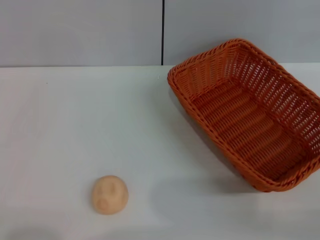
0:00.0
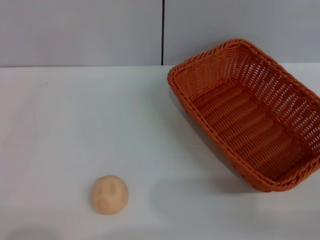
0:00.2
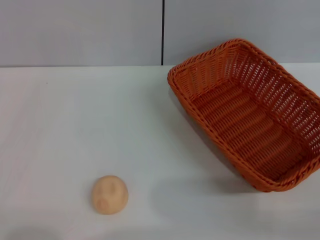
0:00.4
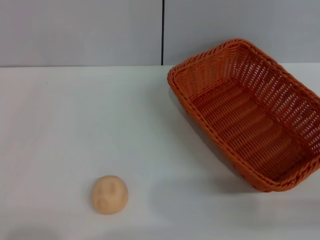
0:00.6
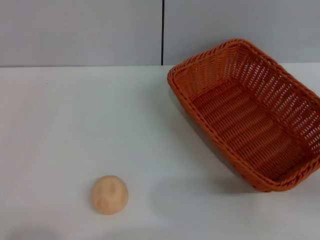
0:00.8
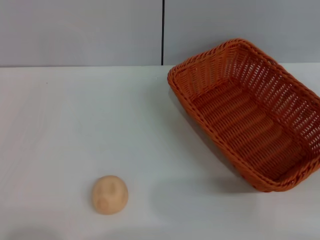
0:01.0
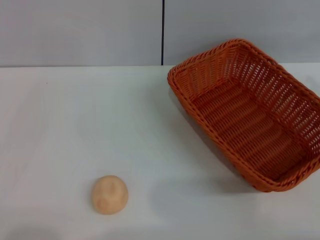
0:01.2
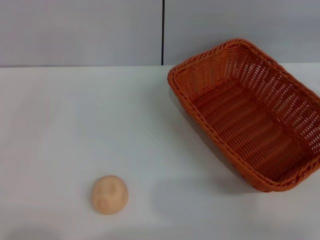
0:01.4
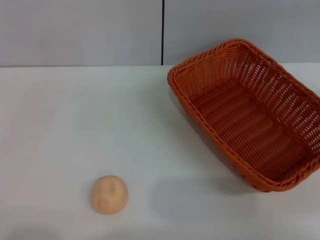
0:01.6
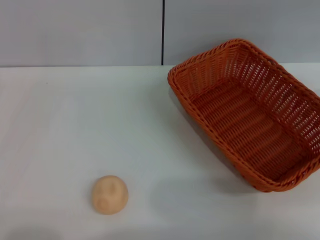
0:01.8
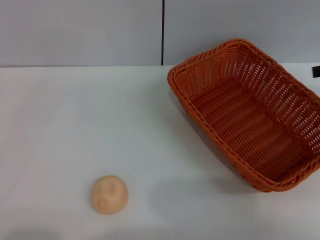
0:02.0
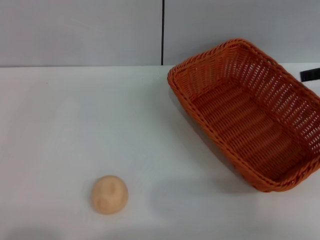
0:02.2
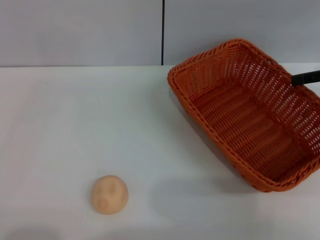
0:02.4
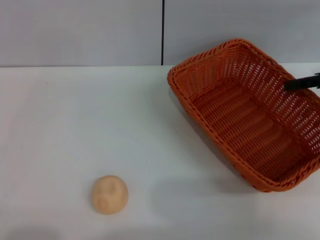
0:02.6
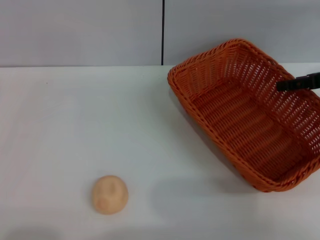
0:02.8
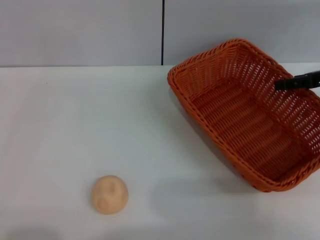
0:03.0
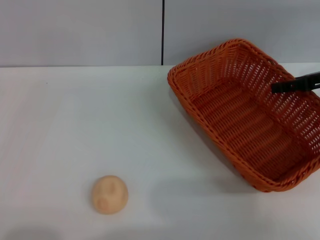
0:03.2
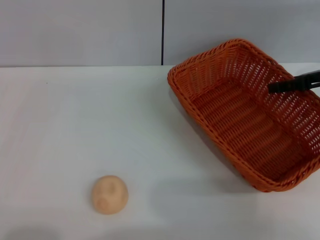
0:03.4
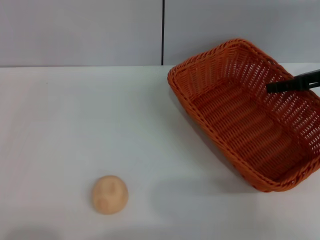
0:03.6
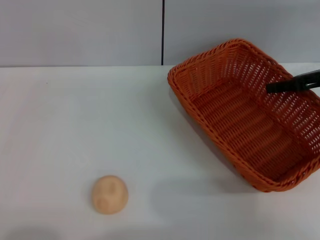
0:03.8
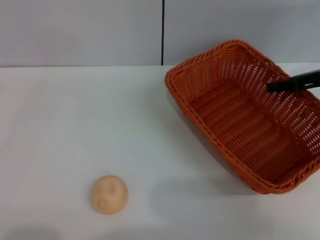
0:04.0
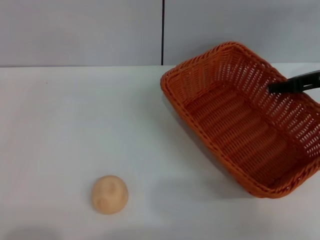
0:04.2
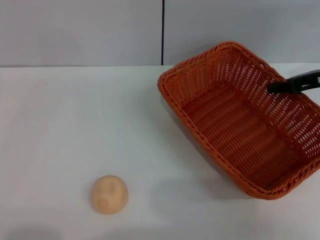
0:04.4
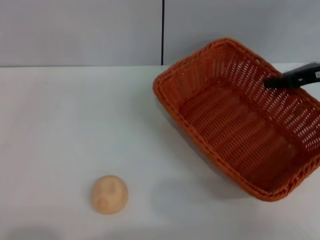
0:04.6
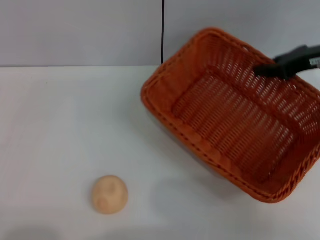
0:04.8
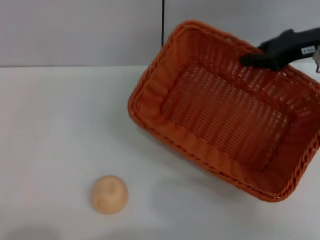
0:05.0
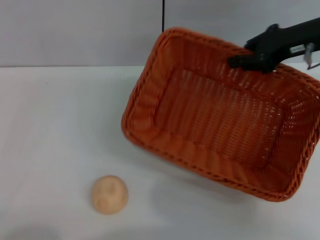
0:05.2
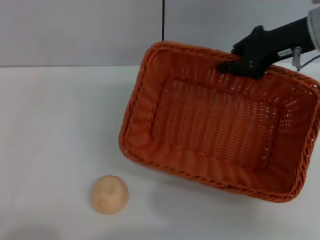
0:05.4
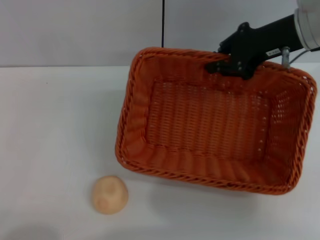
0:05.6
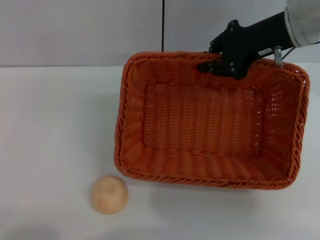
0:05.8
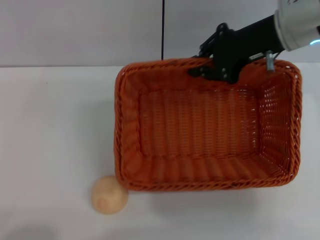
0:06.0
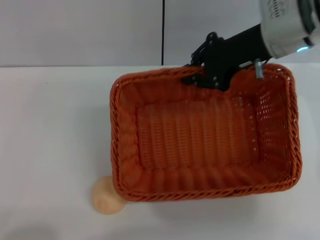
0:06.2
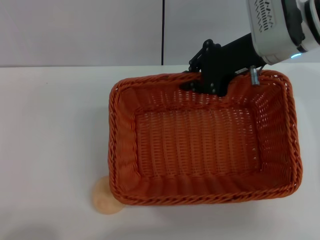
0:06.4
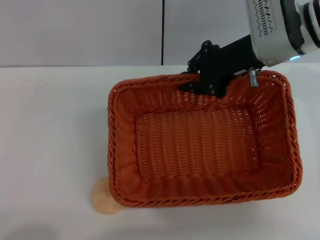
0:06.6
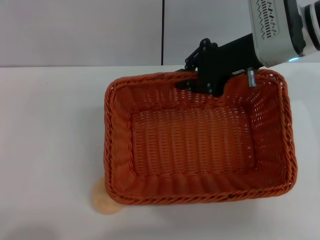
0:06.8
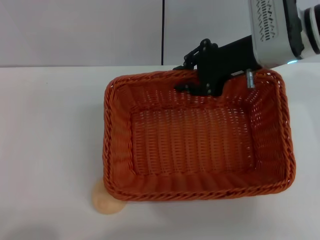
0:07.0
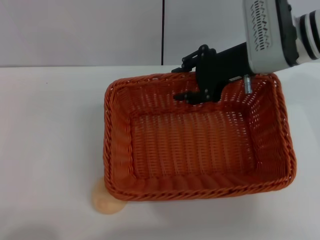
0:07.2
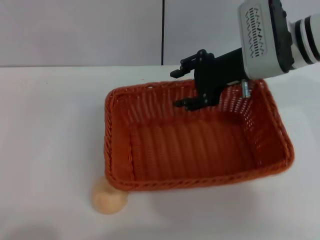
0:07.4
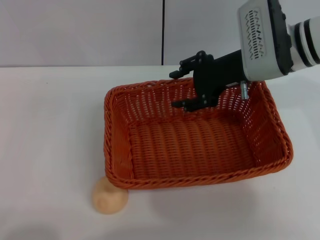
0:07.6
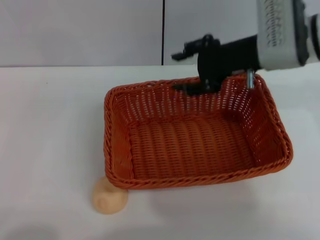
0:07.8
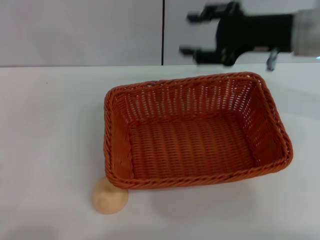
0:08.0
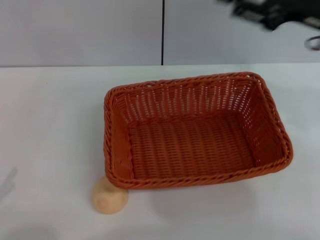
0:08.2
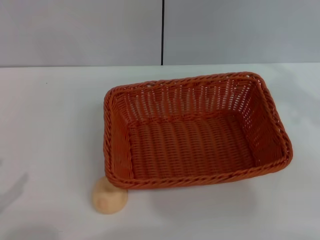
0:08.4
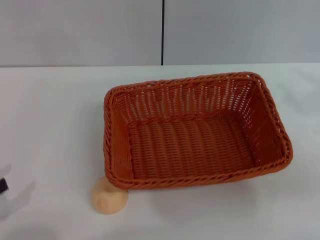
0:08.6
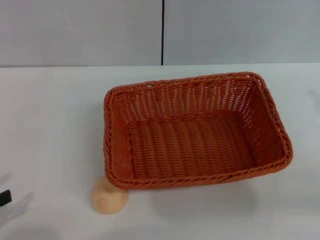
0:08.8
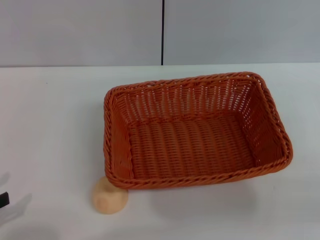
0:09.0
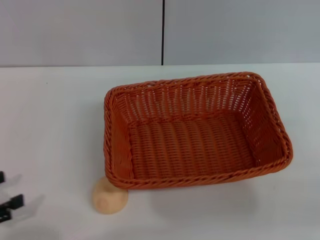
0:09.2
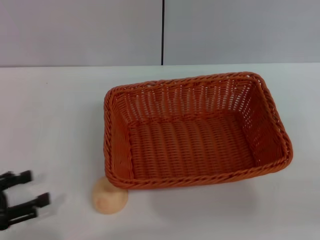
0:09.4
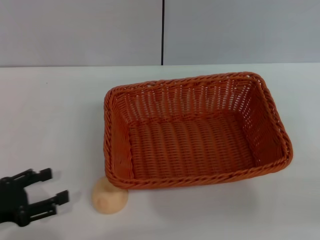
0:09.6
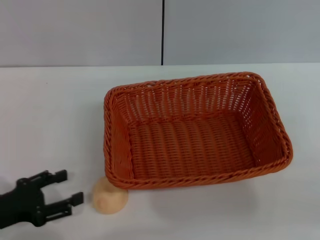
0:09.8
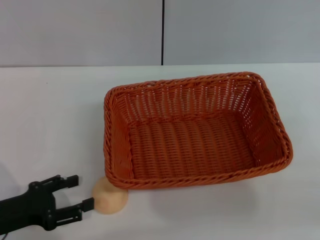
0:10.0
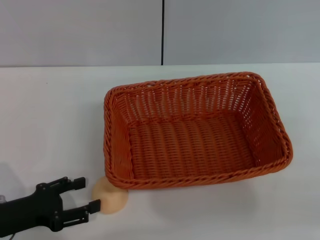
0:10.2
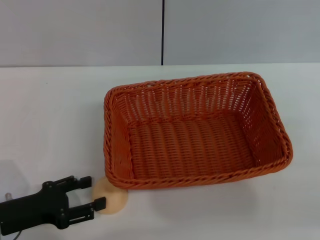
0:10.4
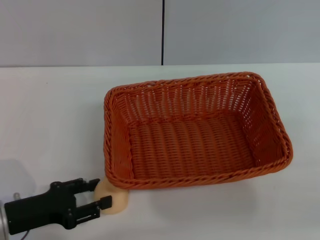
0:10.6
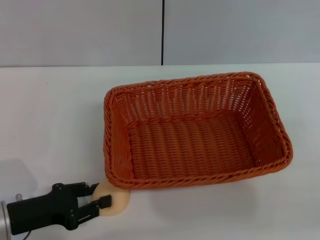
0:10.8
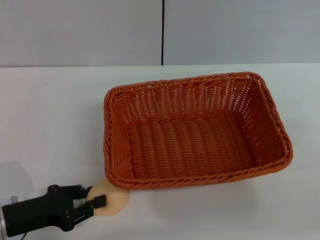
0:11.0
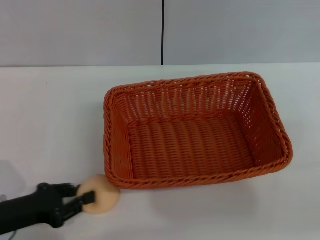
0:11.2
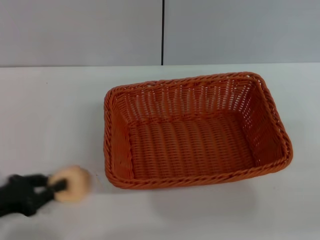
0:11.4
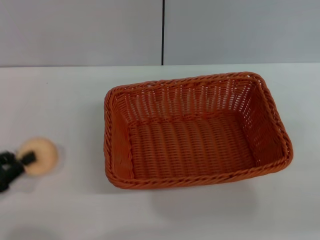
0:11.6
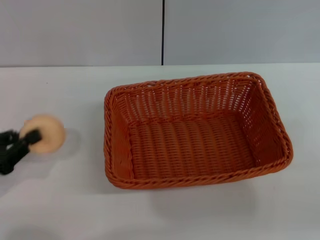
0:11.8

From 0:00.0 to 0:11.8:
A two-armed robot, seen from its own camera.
Step, from 0:00.0 to 0:07.8: Move the basket to the center of view with the right gripper.
Step, from 0:08.0 to 0:11.6: Pick up the egg yolk pastry with the left gripper.
From 0:01.4 to 0:03.0: The right gripper shifts some 10 cm forward and to the left.
From 0:03.0 to 0:04.4: The right gripper closes.
From 0:04.4 to 0:06.0: The right gripper moves to the left and upward, about 15 cm, while the left gripper travels backward by about 10 cm.
From 0:06.0 to 0:07.4: The right gripper ends up approximately 5 cm from where it was, and opens up.
From 0:07.4 to 0:08.8: The left gripper heads forward, covering approximately 5 cm. The right gripper is displaced to the right and backward by approximately 25 cm.
From 0:08.8 to 0:10.4: The left gripper travels to the right, forward and downward by approximately 10 cm.
From 0:10.4 to 0:11.8: The left gripper goes some 5 cm to the left, and closes.

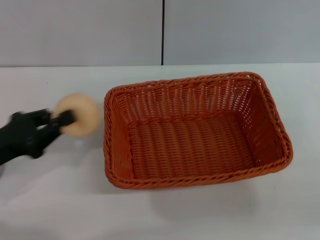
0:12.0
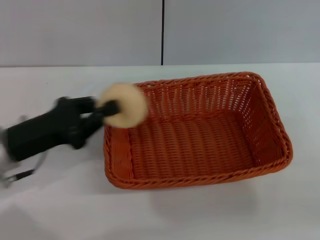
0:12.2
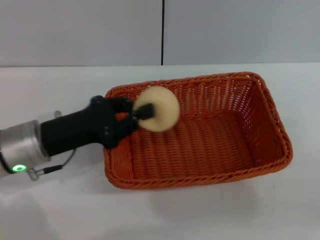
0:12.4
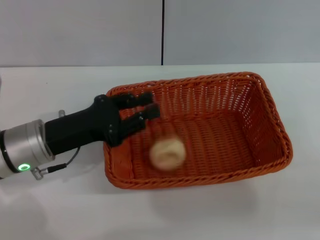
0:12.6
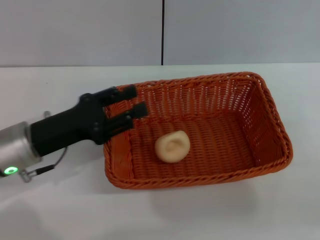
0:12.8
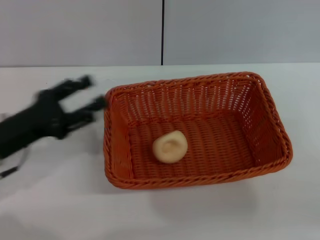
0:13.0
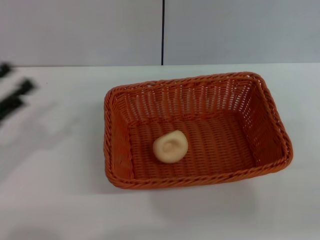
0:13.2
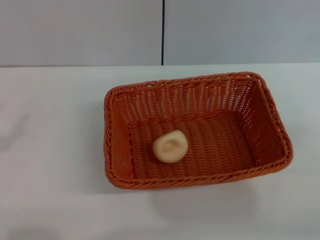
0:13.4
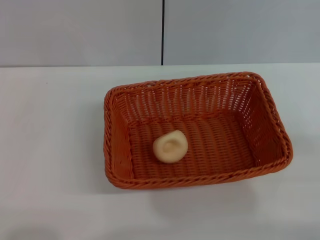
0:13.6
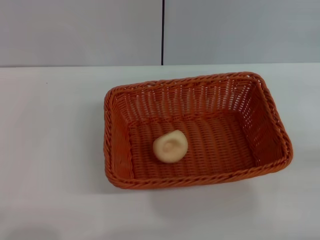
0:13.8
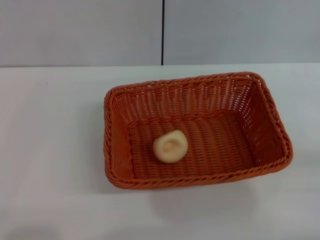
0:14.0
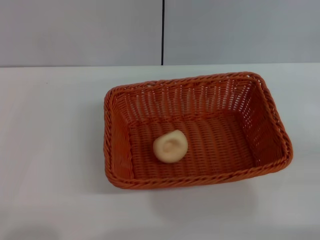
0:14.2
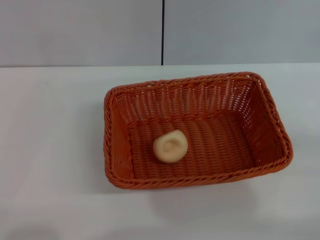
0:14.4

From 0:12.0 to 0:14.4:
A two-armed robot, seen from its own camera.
Step, from 0:12.0 to 0:12.8: Place the egg yolk pastry into the basket with the left gripper.
From 0:12.0 to 0:13.2: The left gripper moves about 10 cm to the right and comes back, and opens.
From 0:13.2 to 0:14.4: The left gripper goes about 15 cm backward and to the left.

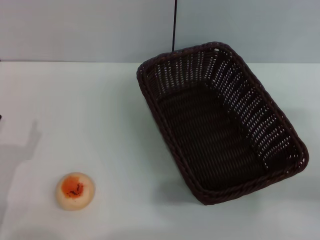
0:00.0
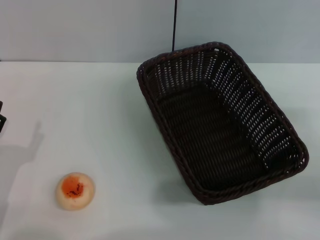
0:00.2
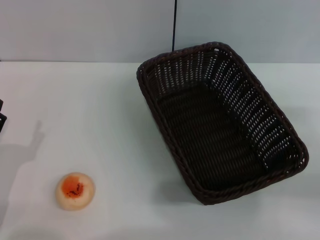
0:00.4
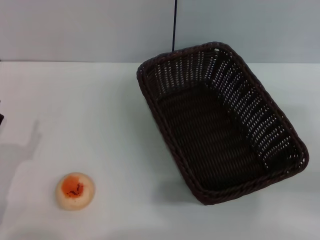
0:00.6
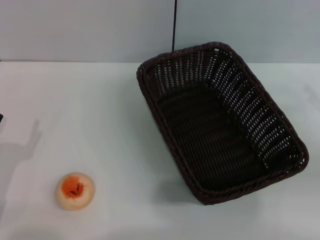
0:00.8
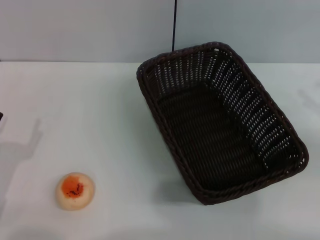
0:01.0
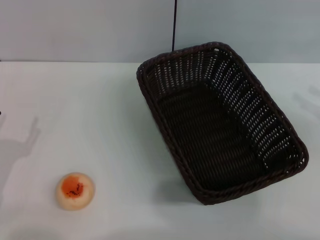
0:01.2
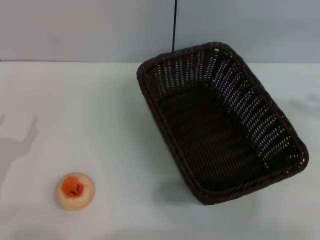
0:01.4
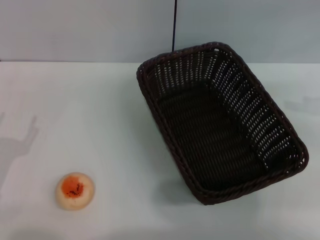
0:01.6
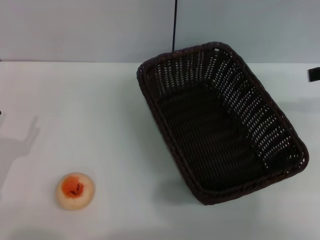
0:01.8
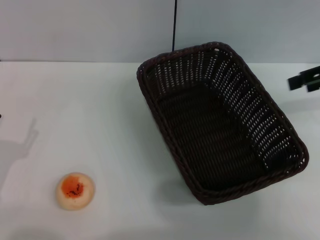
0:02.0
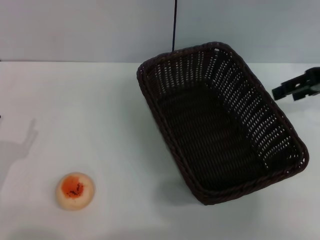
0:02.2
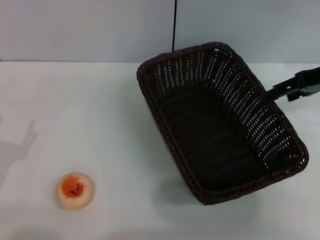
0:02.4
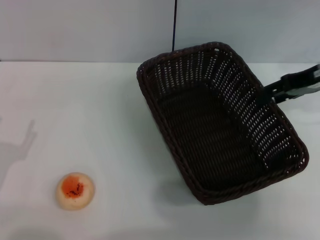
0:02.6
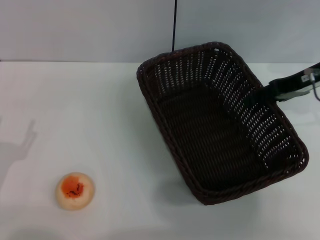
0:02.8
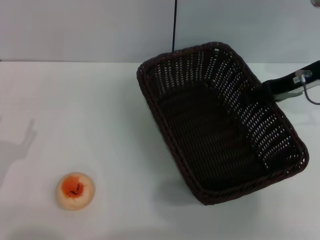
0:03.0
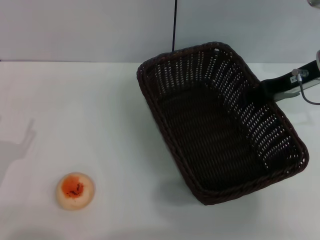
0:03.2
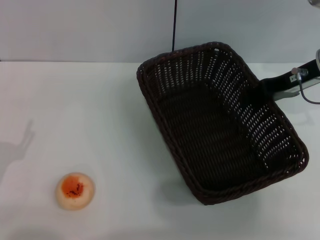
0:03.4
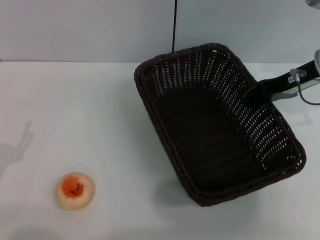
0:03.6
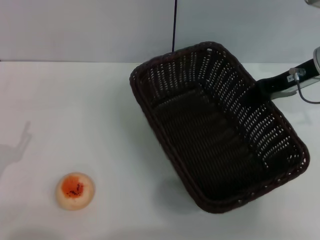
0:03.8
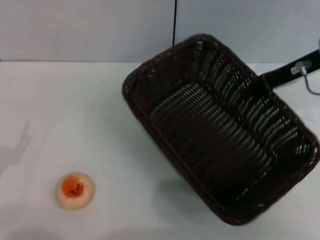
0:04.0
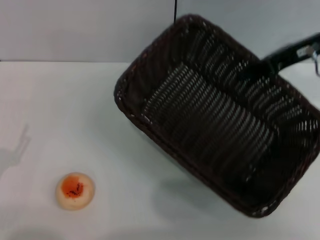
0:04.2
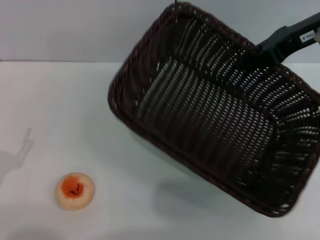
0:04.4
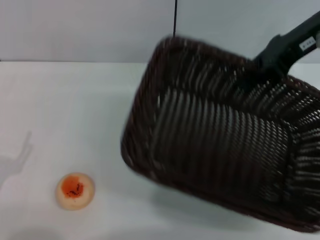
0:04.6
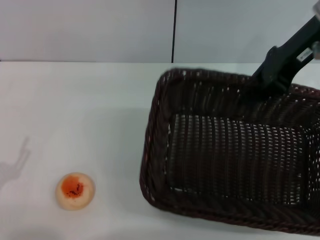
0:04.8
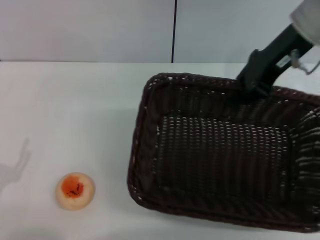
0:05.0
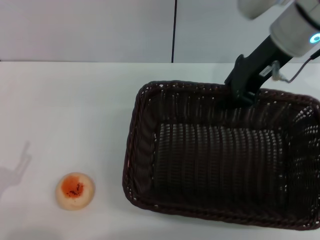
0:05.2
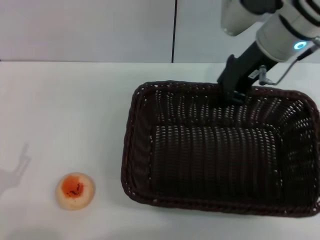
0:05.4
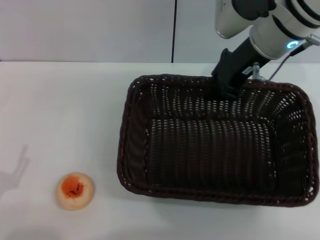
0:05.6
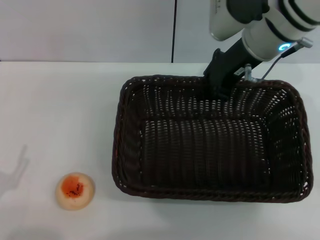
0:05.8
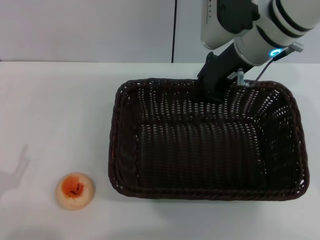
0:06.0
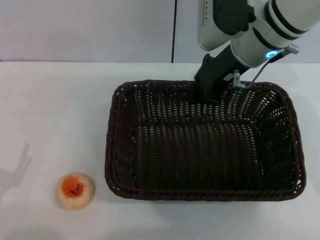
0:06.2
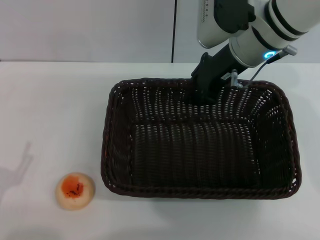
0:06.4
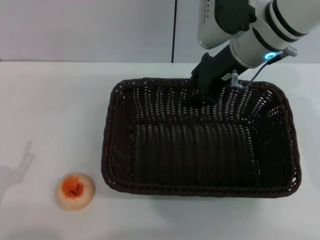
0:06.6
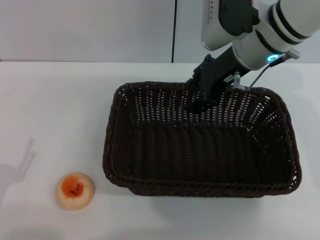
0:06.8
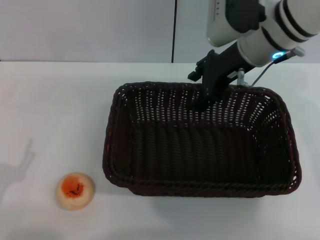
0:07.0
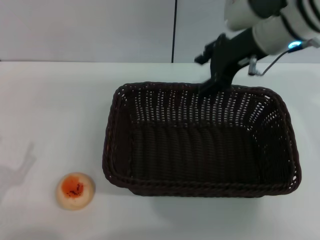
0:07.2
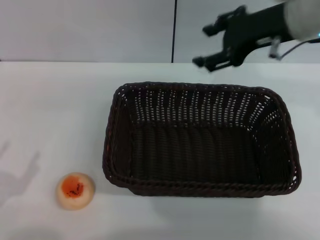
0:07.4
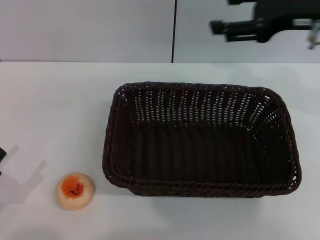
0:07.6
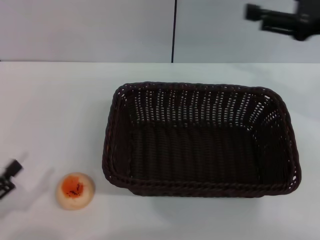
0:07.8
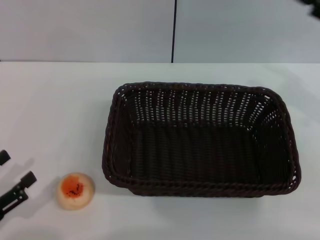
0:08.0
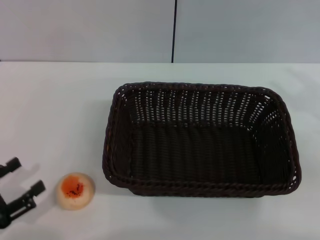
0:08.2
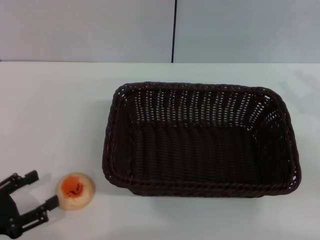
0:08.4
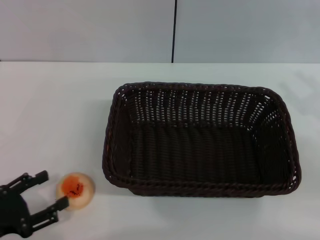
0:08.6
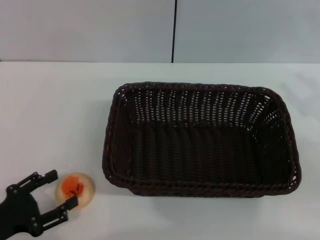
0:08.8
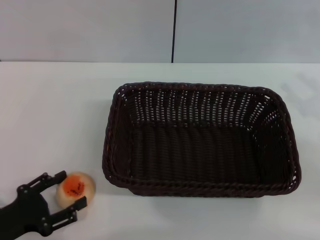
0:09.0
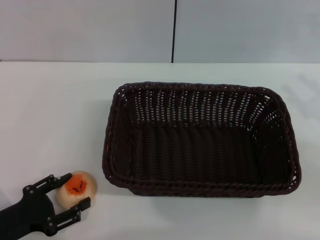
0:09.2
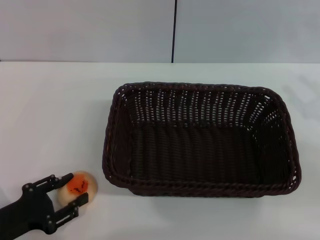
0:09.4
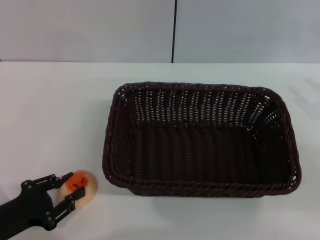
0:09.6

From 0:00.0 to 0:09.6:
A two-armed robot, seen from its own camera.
Step, from 0:00.0 to 0:07.6: Move the basket to the center of view with the right gripper.
From 0:00.0 to 0:01.6: The right gripper travels upward and forward by approximately 15 cm.
From 0:01.6 to 0:03.2: The right gripper moves to the left, forward and downward, approximately 15 cm.
From 0:03.2 to 0:04.8: The right gripper moves upward, approximately 10 cm, and closes its fingers.
From 0:04.8 to 0:06.4: The right gripper shifts some 10 cm to the left and downward.
From 0:06.4 to 0:08.0: The right gripper moves to the right and backward, some 25 cm, and opens up.
From 0:08.0 to 0:09.6: The left gripper moves some 5 cm.
